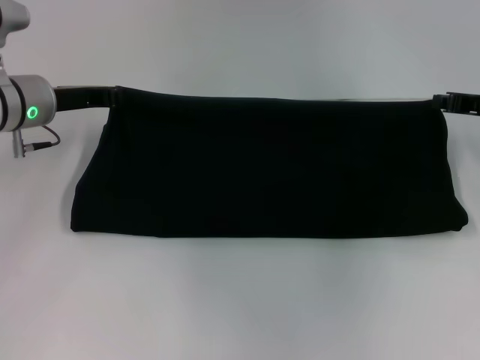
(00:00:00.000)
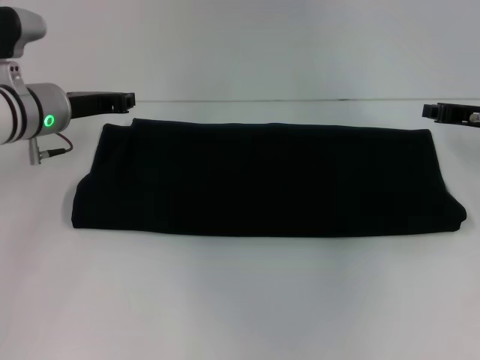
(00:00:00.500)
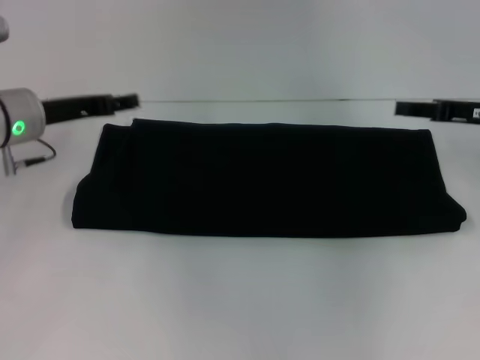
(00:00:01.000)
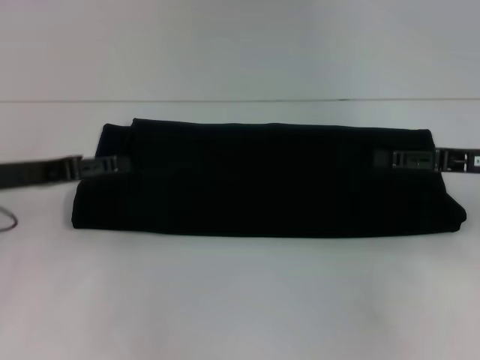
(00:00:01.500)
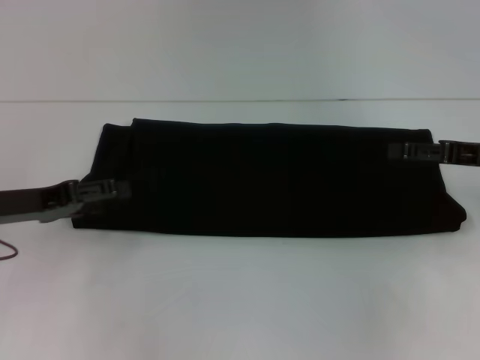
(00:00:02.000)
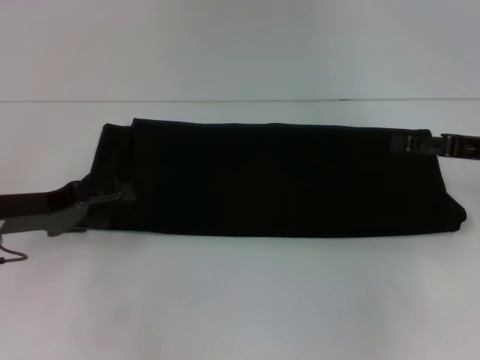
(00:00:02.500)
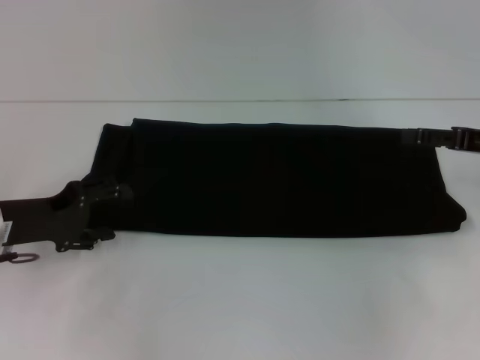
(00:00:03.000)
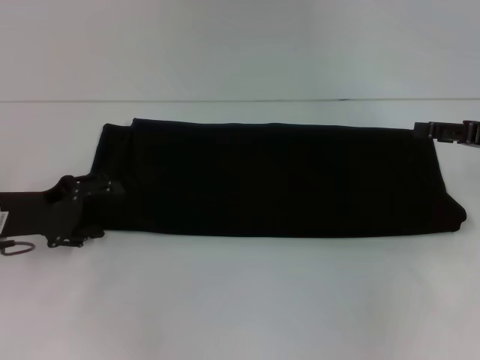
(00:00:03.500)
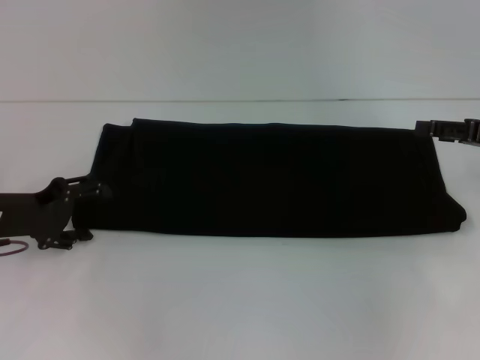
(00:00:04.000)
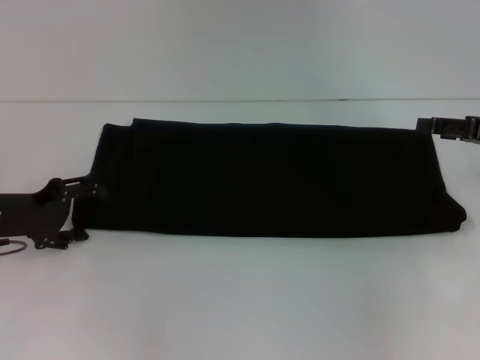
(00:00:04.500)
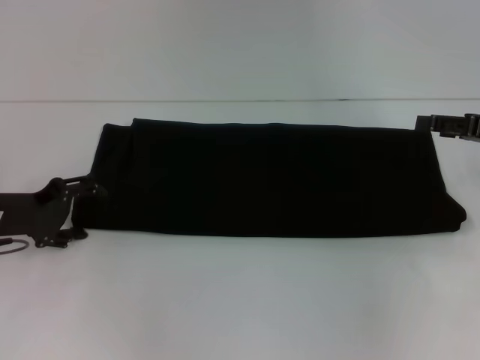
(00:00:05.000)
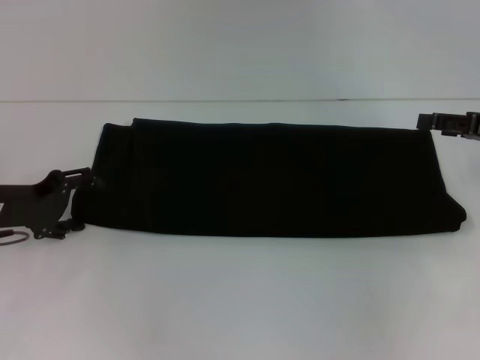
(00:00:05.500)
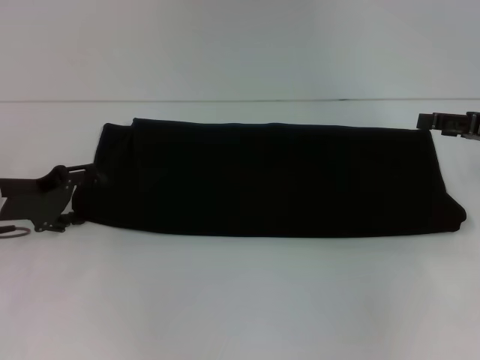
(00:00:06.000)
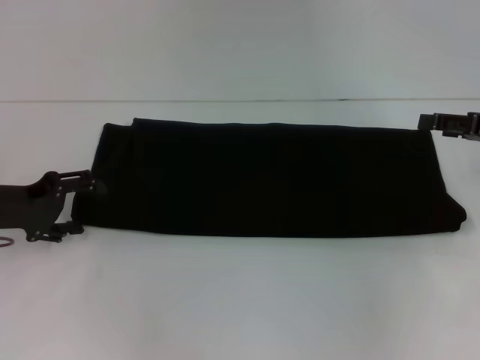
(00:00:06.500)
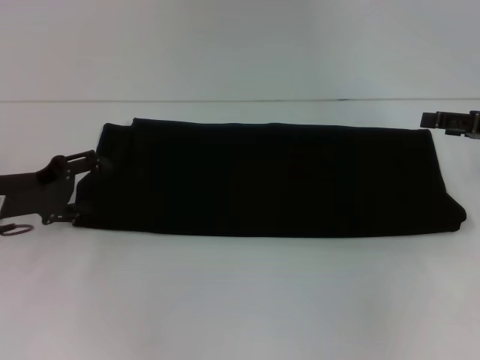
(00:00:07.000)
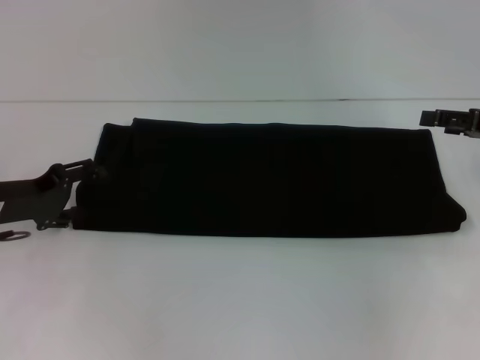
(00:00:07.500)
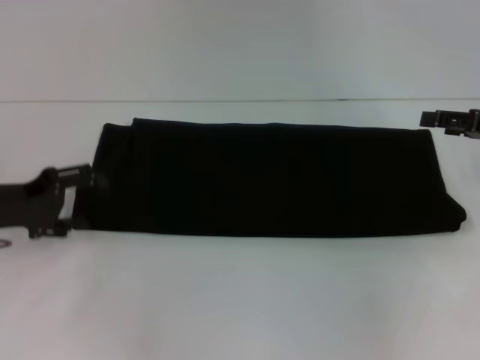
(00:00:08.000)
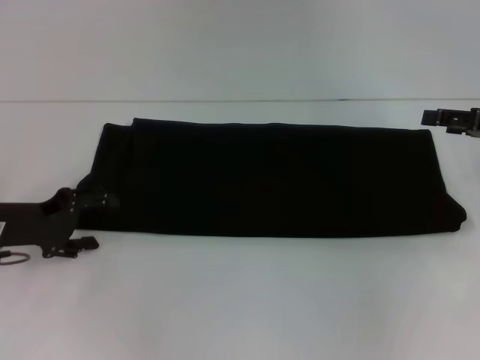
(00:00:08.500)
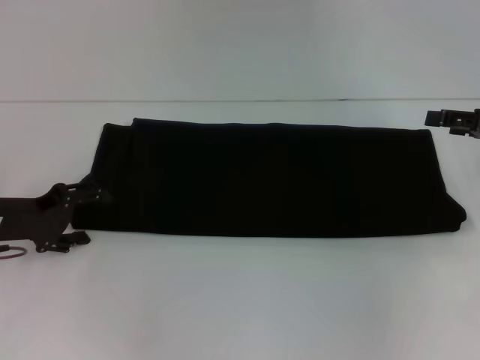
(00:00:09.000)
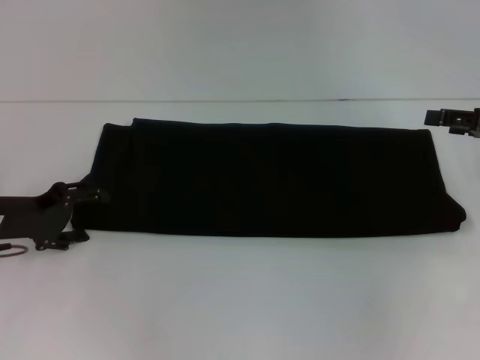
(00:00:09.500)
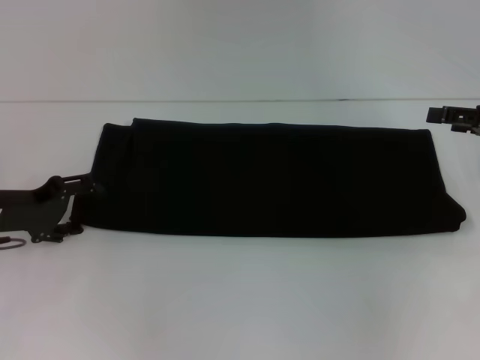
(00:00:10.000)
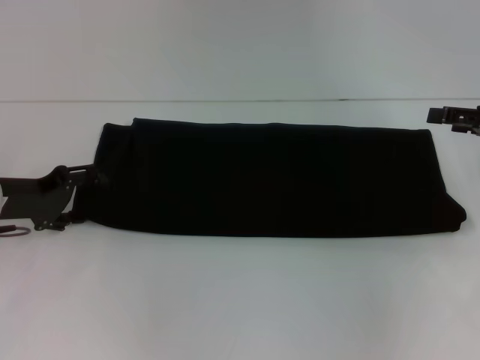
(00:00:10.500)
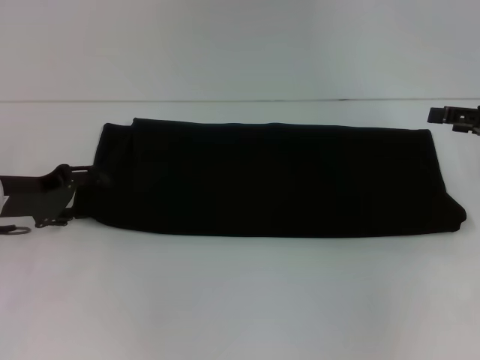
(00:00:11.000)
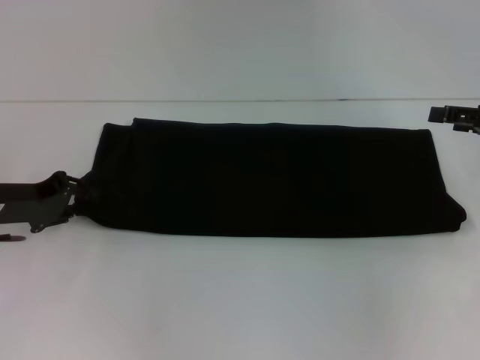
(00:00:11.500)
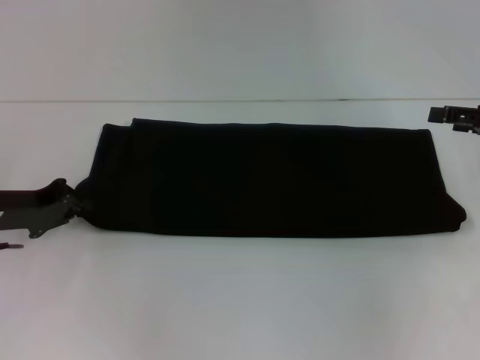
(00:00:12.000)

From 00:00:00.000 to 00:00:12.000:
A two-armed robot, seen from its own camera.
From 00:00:00.000 to 00:00:02.000: The left gripper is displaced backward and to the left by roughly 15 cm, and opens its fingers; the right gripper goes some 5 cm backward, and opens its fingers.
From 00:00:04.000 to 00:00:10.000: The grippers move only a little.
From 00:00:10.000 to 00:00:12.000: The left gripper closes up.

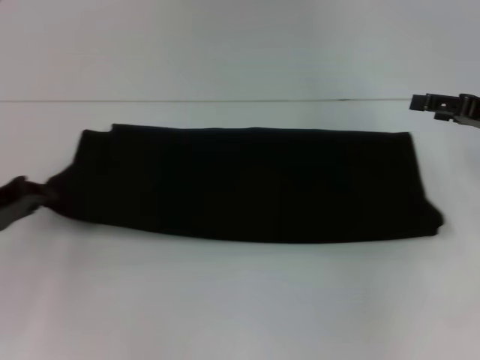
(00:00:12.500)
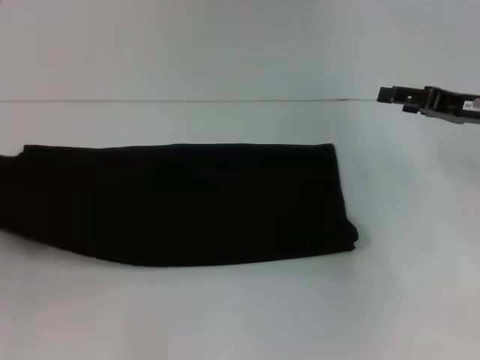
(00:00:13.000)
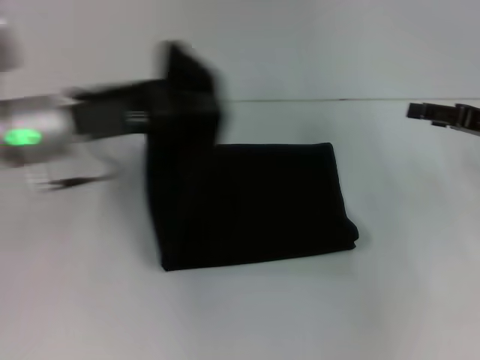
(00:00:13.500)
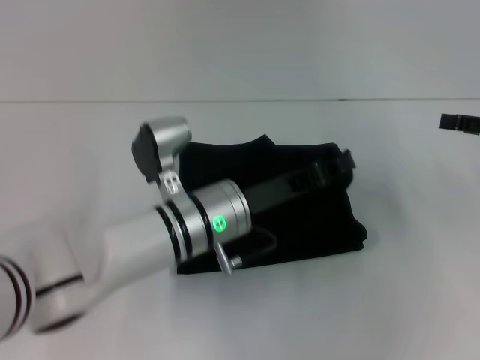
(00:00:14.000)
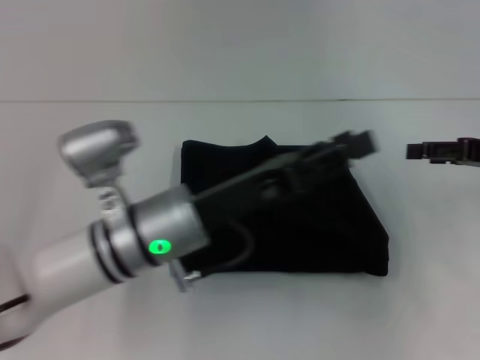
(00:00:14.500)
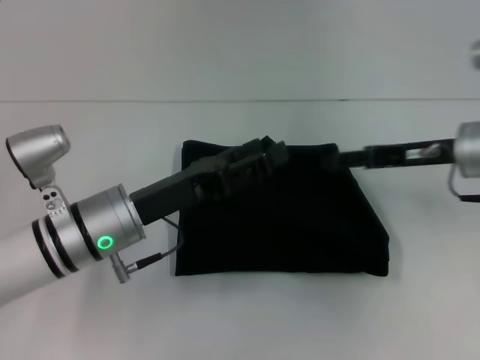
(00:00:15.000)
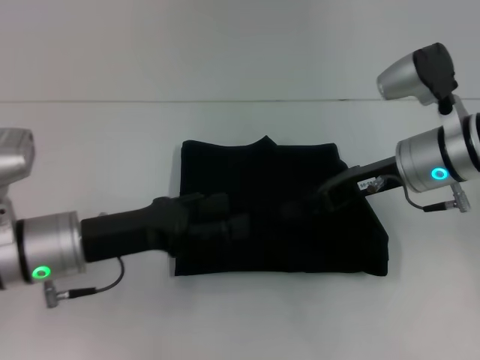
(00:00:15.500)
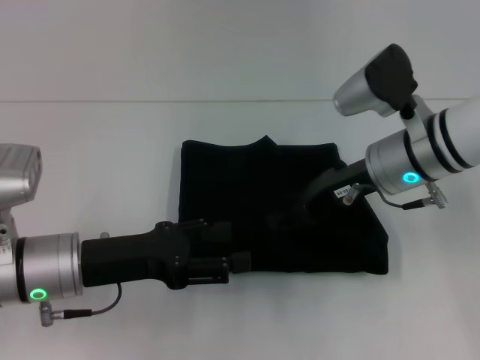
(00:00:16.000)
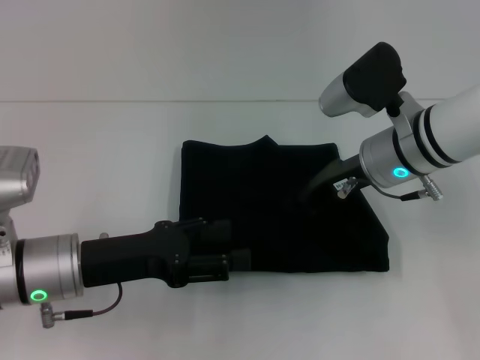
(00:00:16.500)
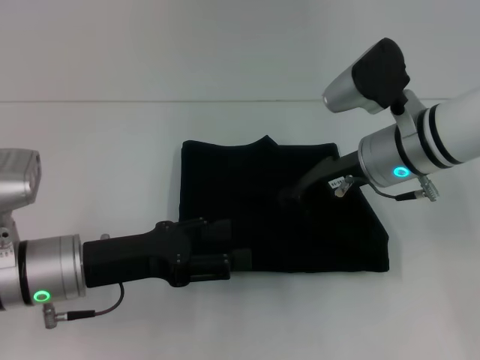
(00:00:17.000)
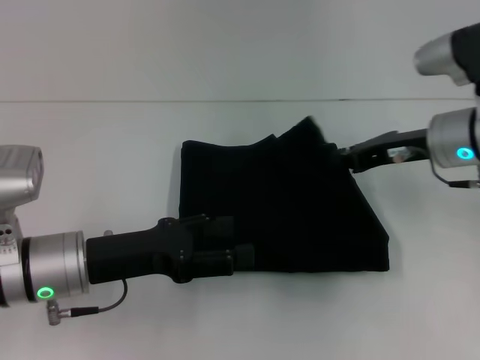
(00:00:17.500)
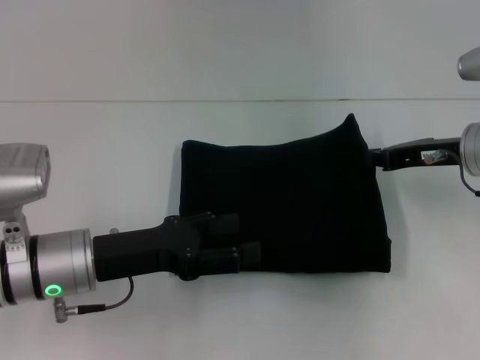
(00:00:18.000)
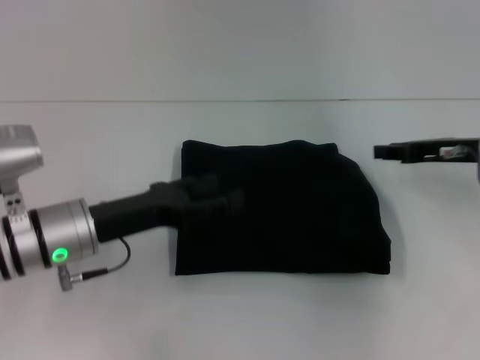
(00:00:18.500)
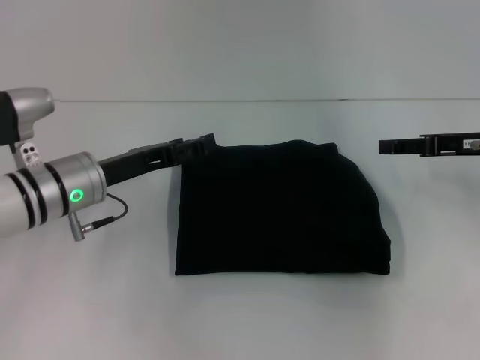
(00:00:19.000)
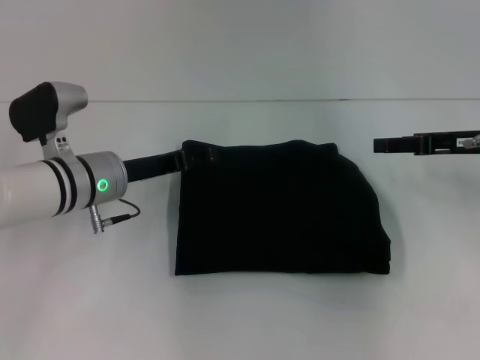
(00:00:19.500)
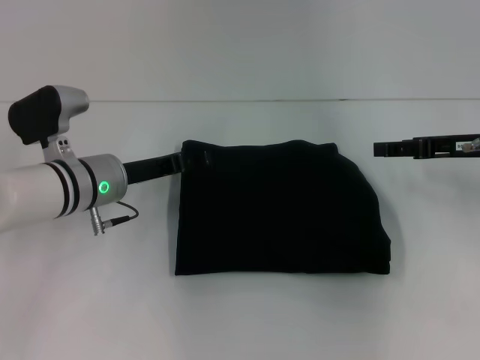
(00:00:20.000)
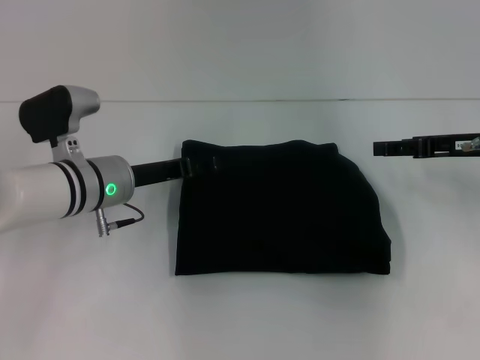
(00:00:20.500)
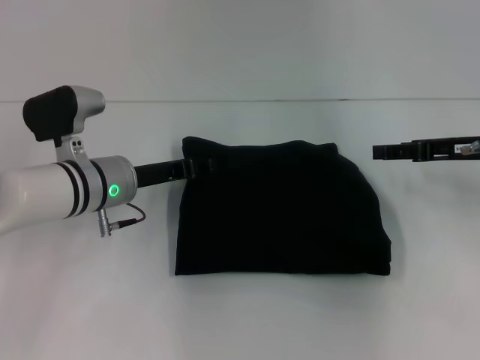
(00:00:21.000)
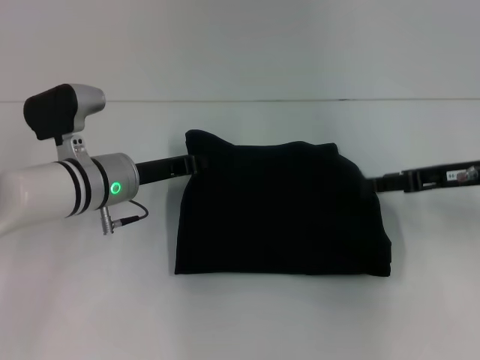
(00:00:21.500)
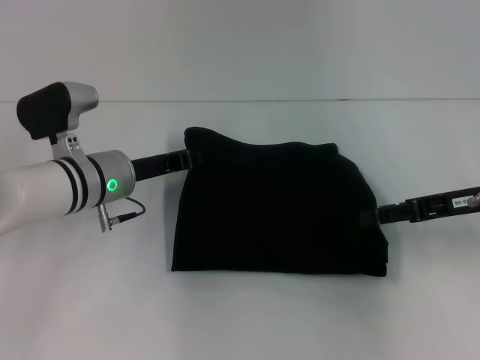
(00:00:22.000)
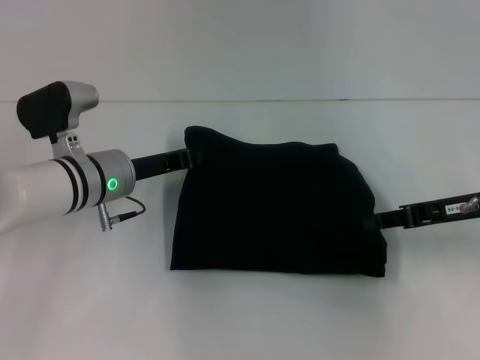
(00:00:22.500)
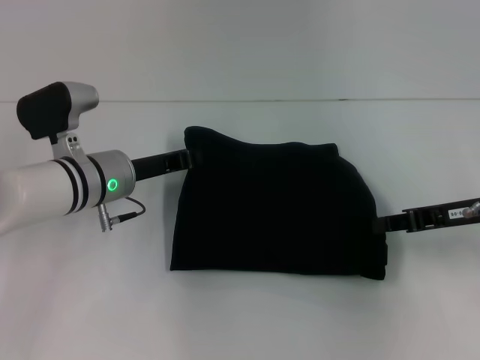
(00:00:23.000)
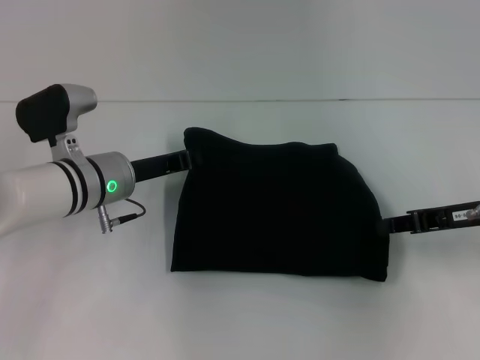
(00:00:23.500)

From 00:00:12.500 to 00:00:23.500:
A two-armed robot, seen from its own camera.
From 00:00:12.500 to 00:00:14.500: The left gripper swings left and right, approximately 35 cm each way, with 2 reversals, and opens.
From 00:00:14.500 to 00:00:16.000: The right gripper is displaced to the left by some 20 cm, while the left gripper travels to the left by roughly 10 cm.
From 00:00:16.000 to 00:00:18.000: The right gripper shifts approximately 10 cm to the right, and closes up.
From 00:00:18.000 to 00:00:20.000: The right gripper opens its fingers. Meanwhile the left gripper shifts about 10 cm forward.
From 00:00:20.000 to 00:00:21.500: The left gripper closes up.
From 00:00:21.500 to 00:00:23.500: The right gripper closes its fingers.

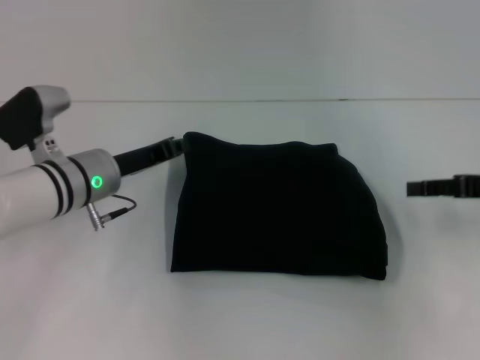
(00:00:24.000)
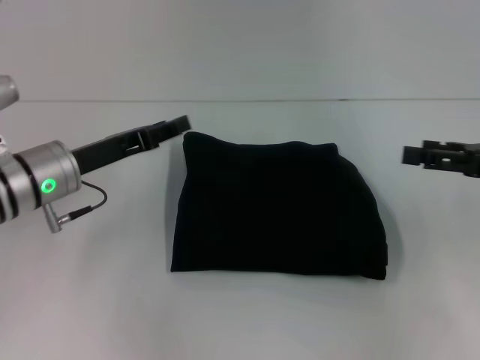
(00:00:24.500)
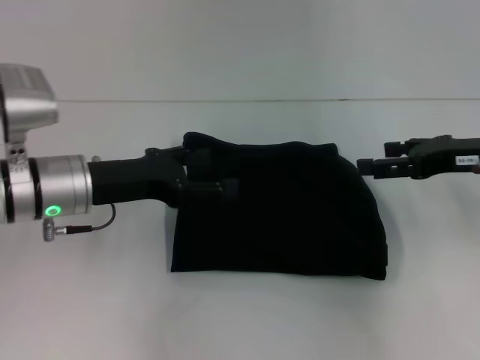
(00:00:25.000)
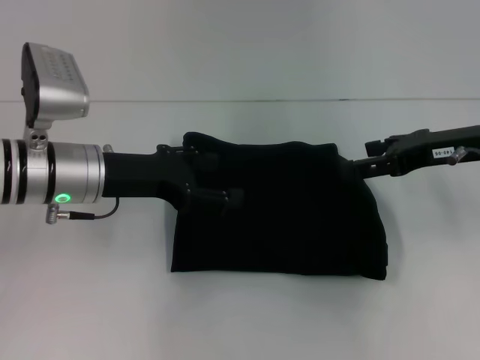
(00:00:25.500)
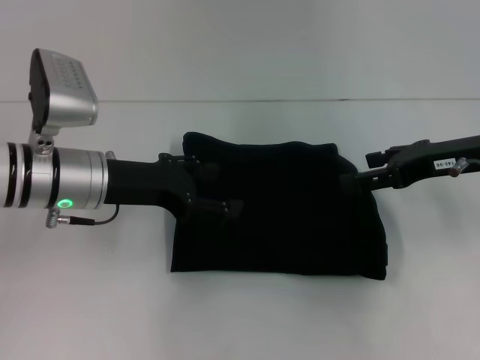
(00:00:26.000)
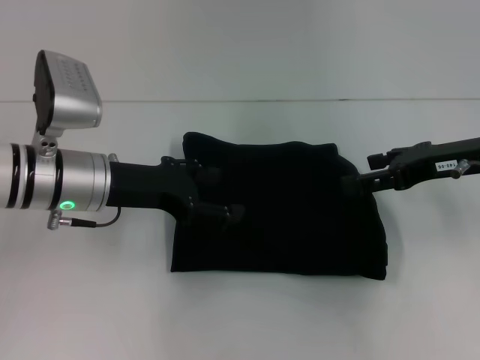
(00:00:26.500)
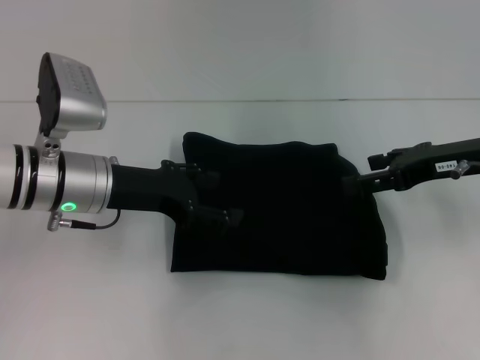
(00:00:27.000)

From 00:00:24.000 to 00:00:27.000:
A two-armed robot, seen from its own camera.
From 00:00:24.000 to 00:00:25.500: The right gripper is displaced to the left by some 5 cm, and opens. Meanwhile the left gripper is displaced upward by about 5 cm, and opens up.
From 00:00:25.500 to 00:00:27.000: The grippers stay close to where they were, moving slightly.
